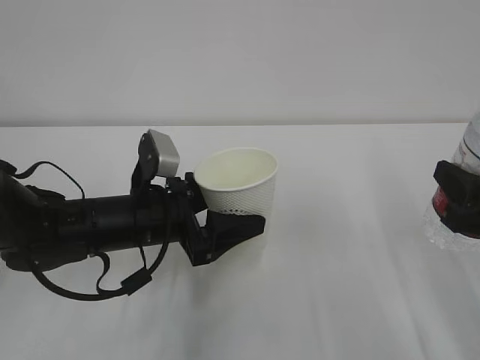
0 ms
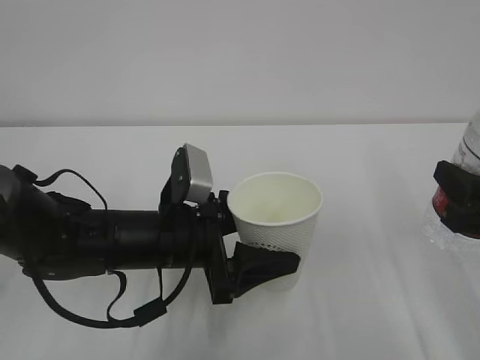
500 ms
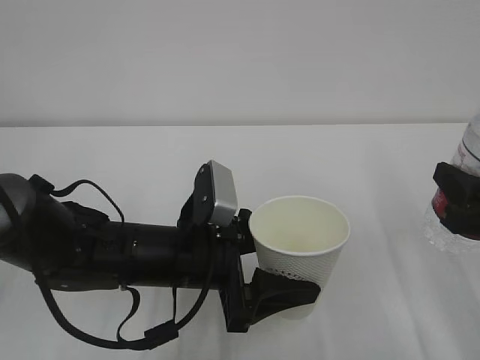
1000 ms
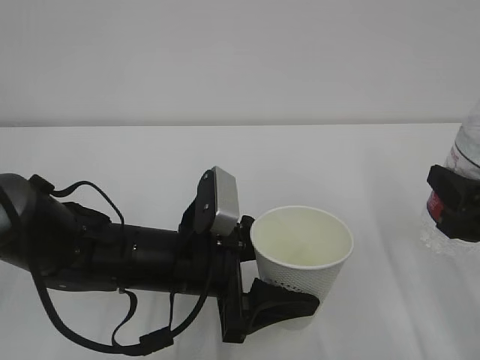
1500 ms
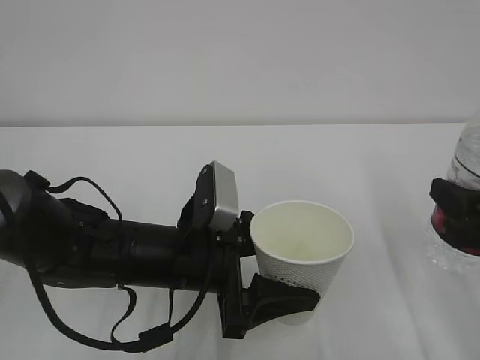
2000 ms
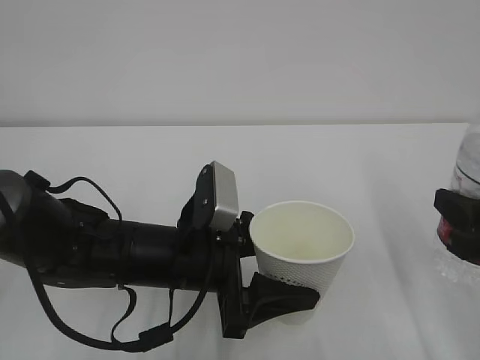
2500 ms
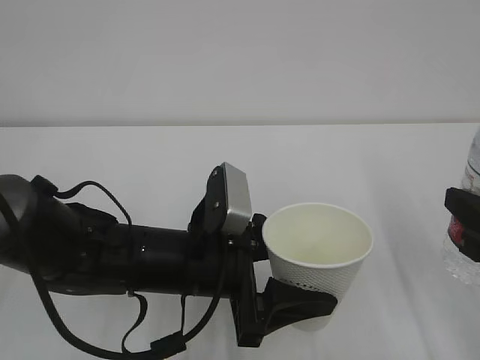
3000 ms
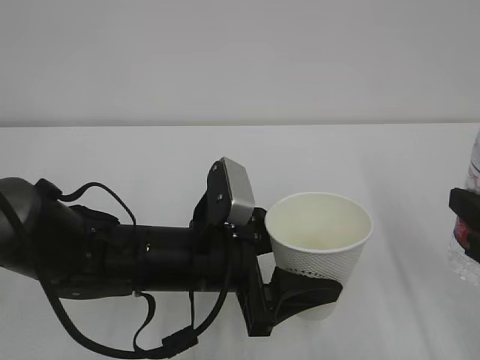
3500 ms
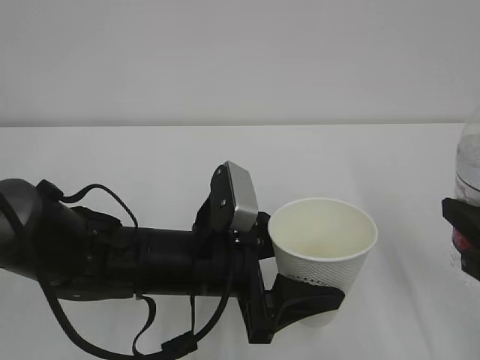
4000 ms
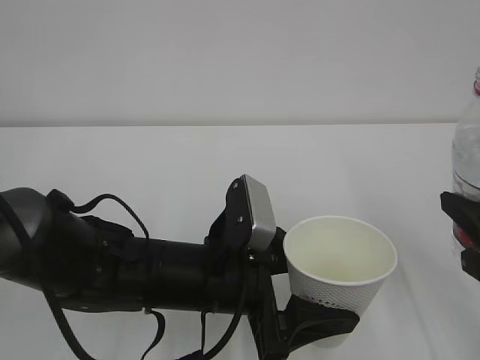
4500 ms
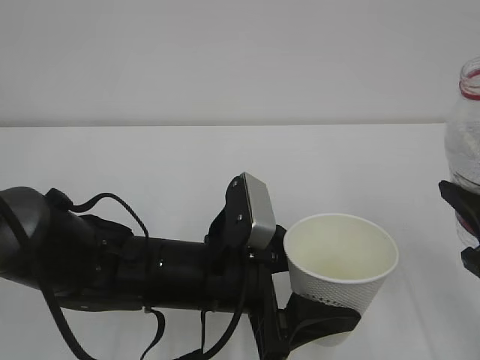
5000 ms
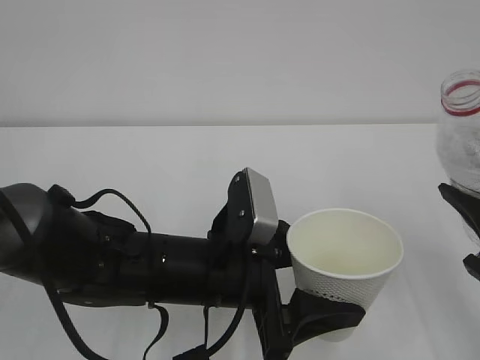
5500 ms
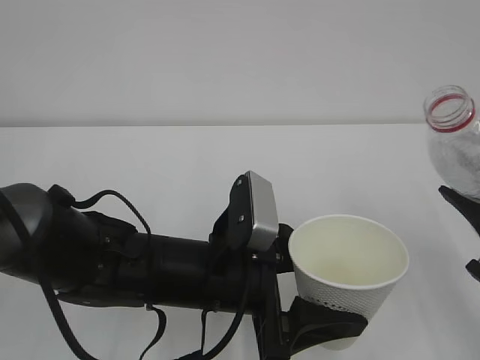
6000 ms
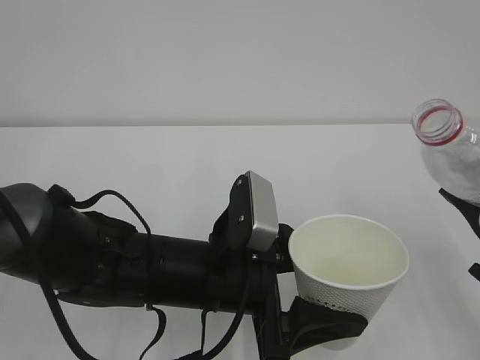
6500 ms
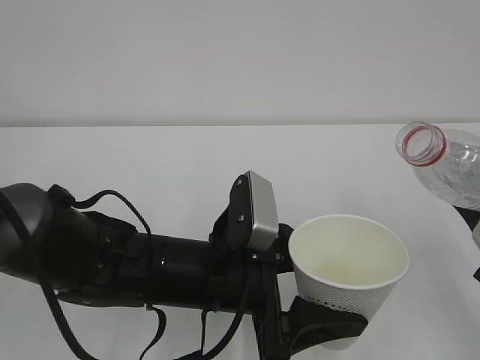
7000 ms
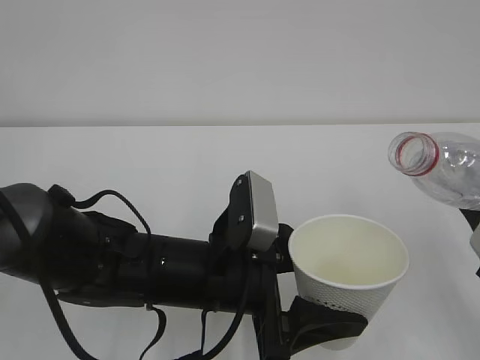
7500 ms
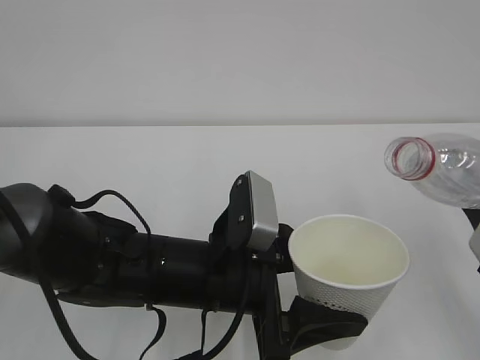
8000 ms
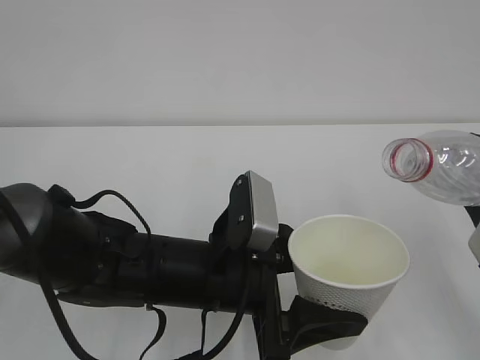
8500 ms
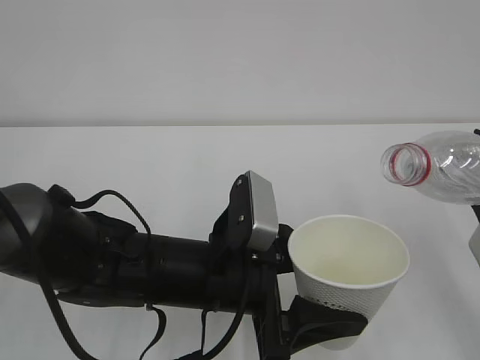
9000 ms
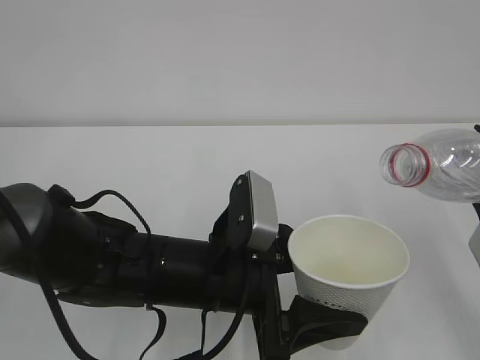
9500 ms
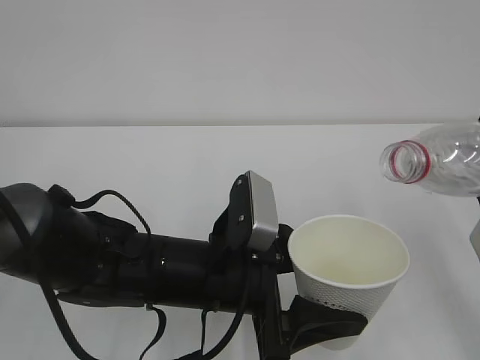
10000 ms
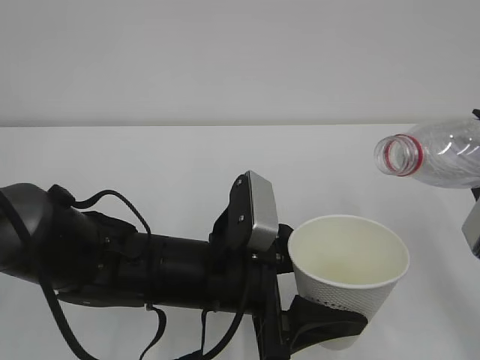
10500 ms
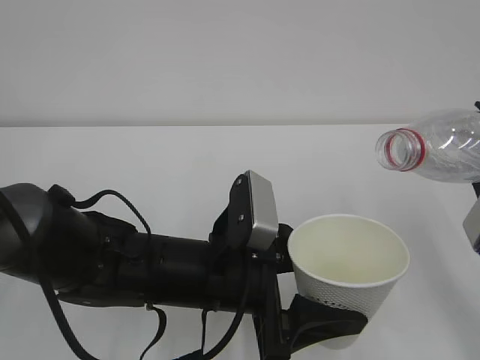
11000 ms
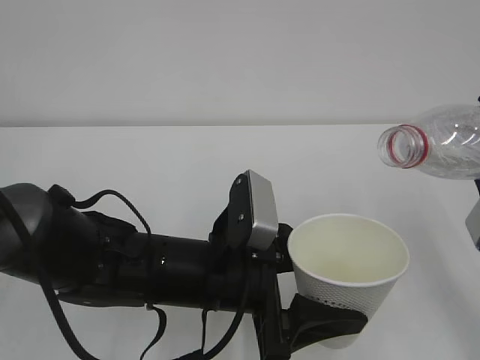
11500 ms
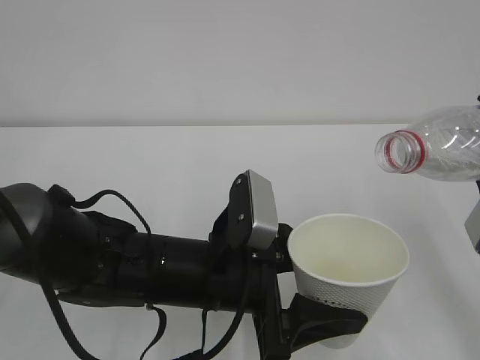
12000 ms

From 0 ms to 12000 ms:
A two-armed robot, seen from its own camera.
From 0 ms to 2000 ms: The left gripper moves backward and to the right, some 5 cm.
From 2000 ms to 4000 ms: The grippers move only a little.
From 8000 ms to 12000 ms: The grippers make only small movements.

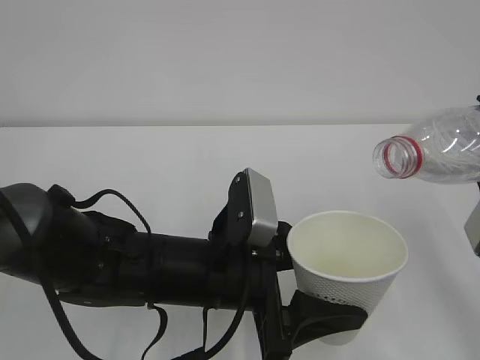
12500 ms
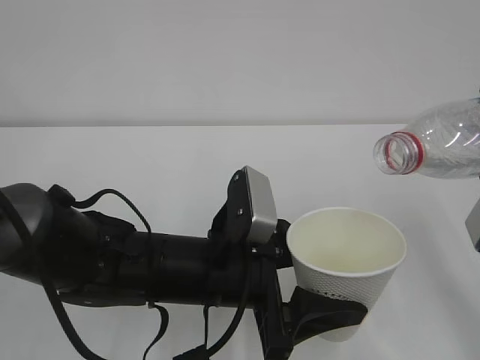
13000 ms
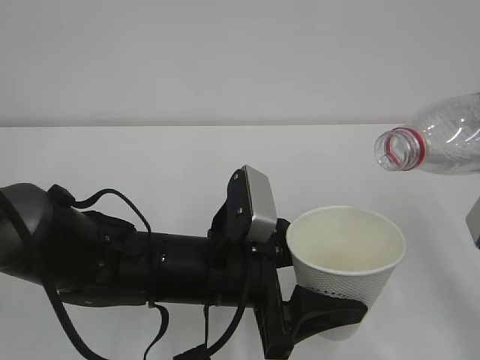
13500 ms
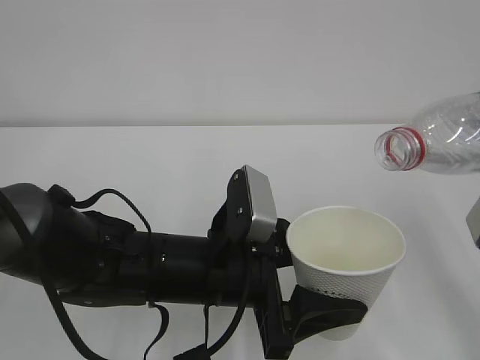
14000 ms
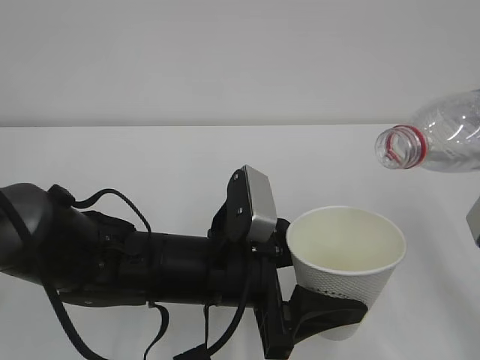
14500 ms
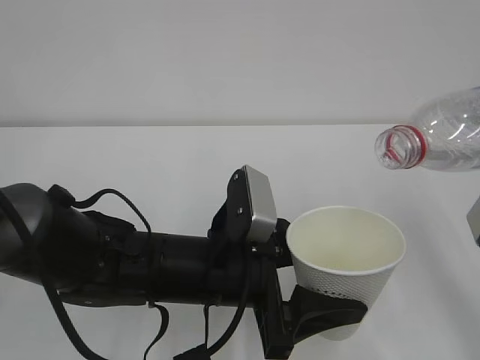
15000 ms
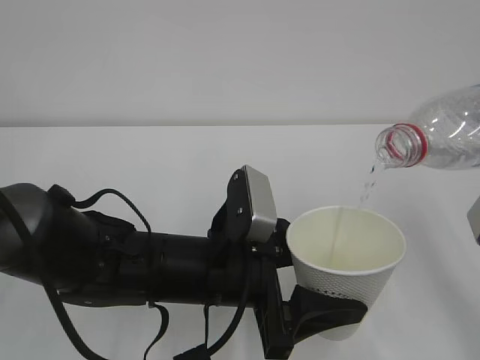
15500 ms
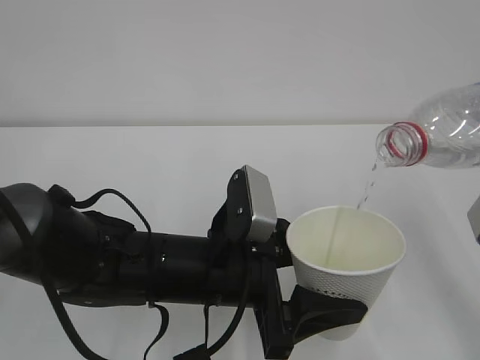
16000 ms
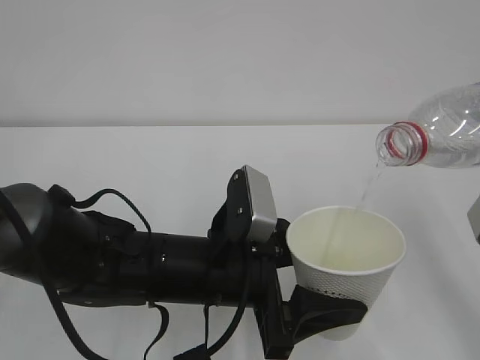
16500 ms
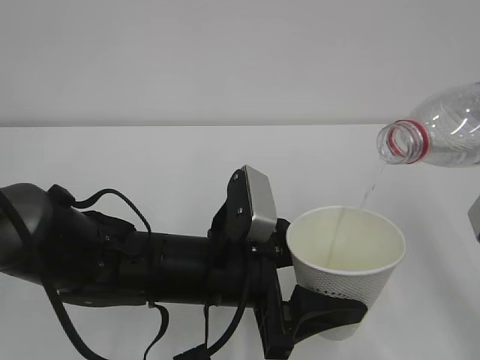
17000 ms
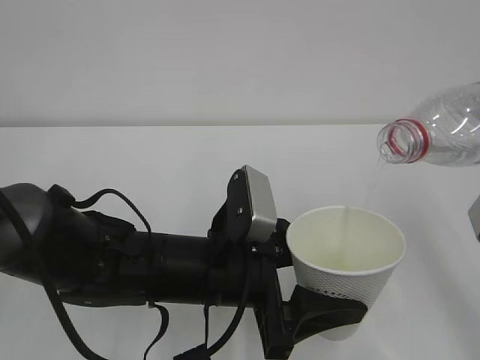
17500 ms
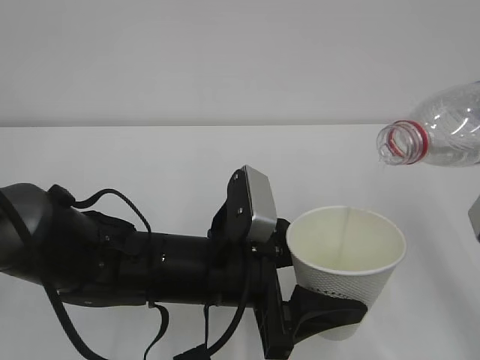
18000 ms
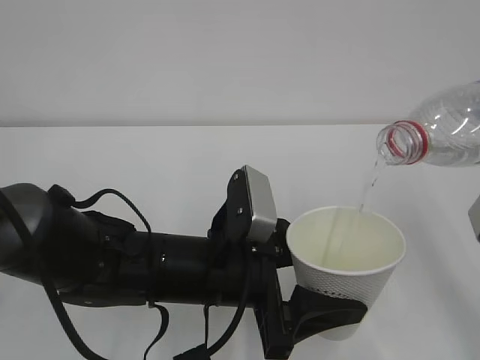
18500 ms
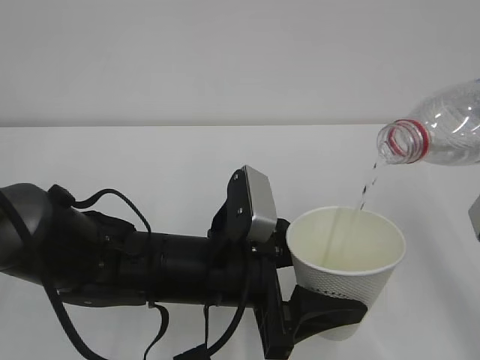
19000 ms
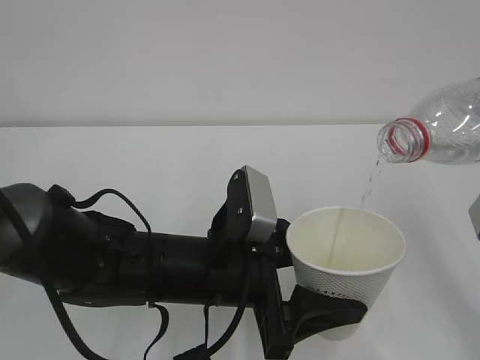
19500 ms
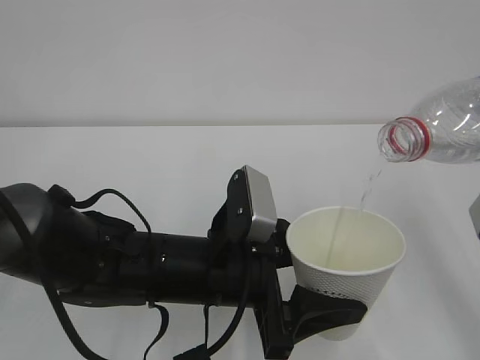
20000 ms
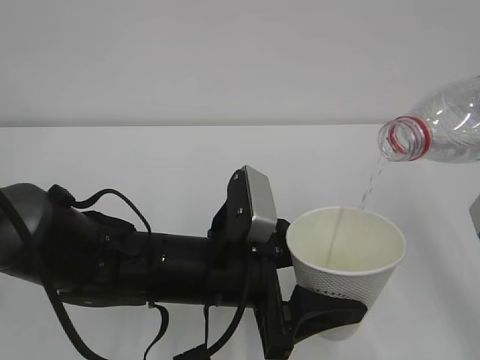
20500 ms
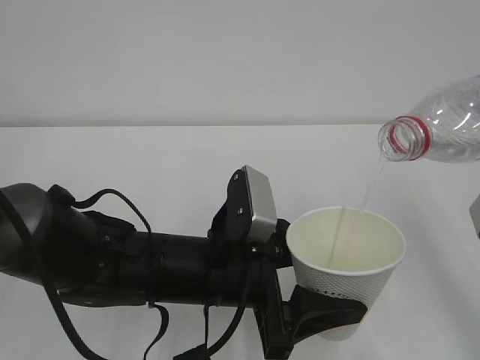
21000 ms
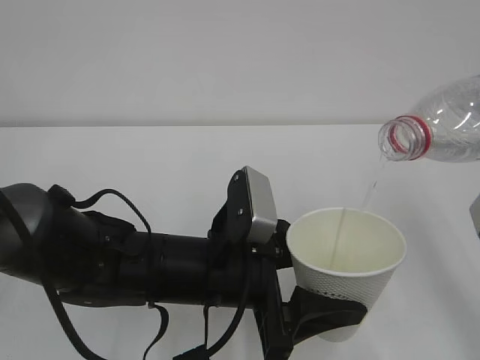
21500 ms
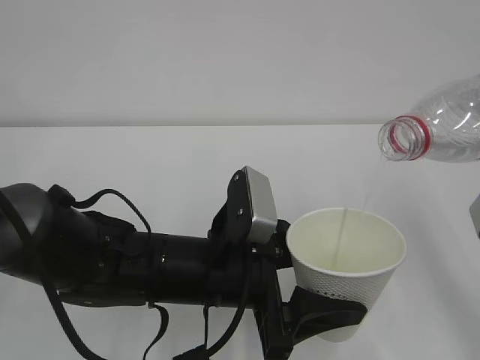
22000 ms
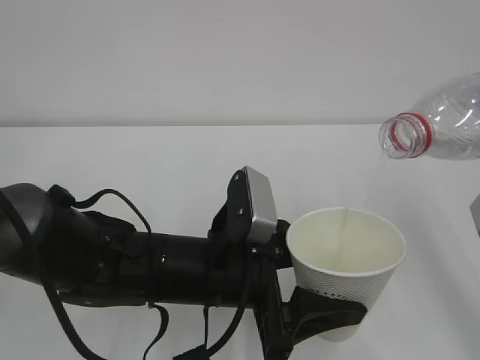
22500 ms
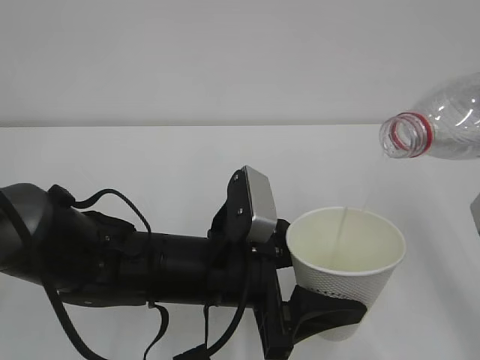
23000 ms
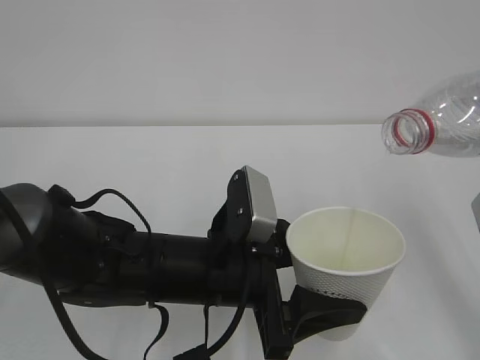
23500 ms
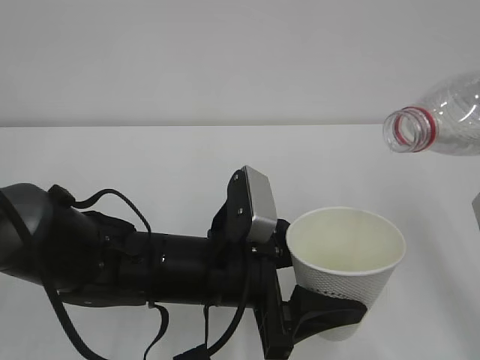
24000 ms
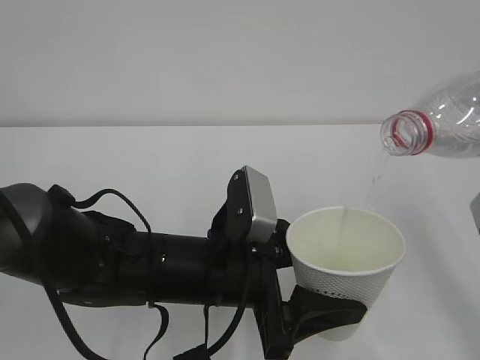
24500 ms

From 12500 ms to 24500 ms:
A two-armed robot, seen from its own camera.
From 12500 ms to 14500 ms: Neither gripper changes place.
From 14500 ms to 20500 ms: The two grippers keep their place.
From 20500 ms to 24500 ms: The two grippers keep their place.

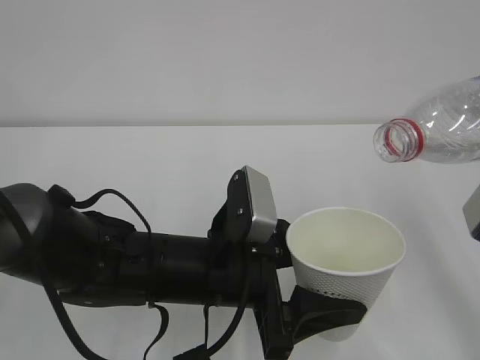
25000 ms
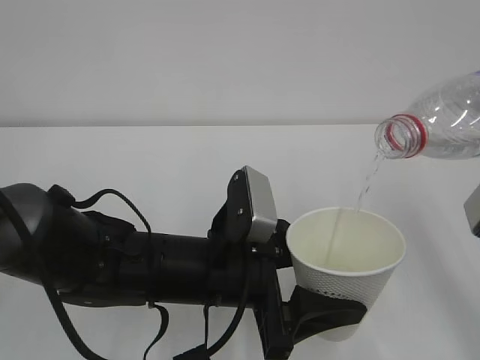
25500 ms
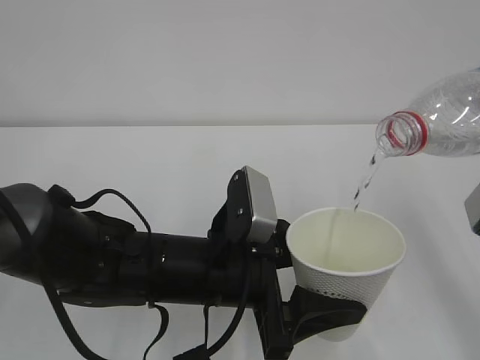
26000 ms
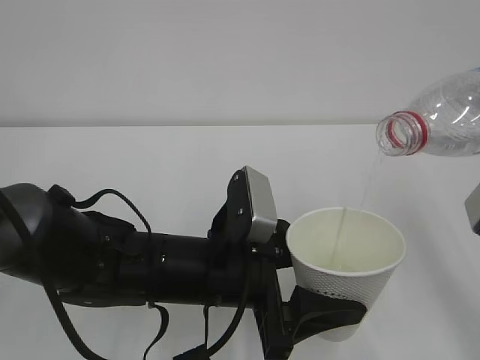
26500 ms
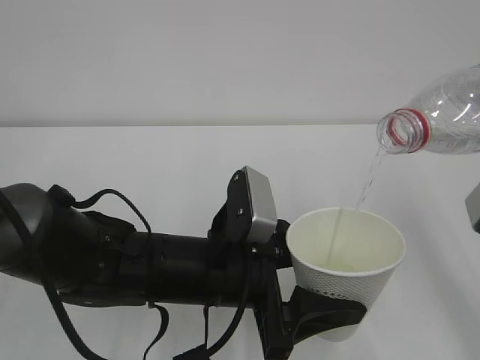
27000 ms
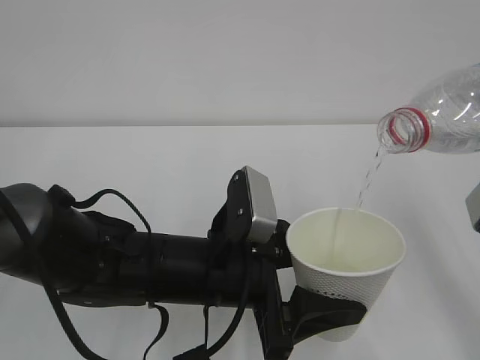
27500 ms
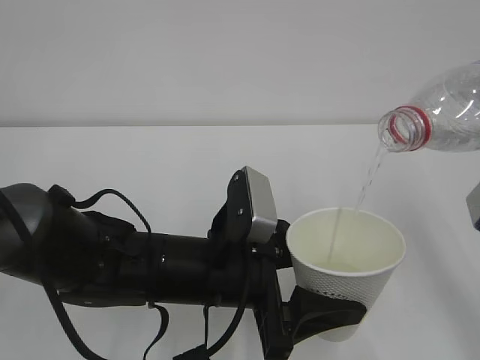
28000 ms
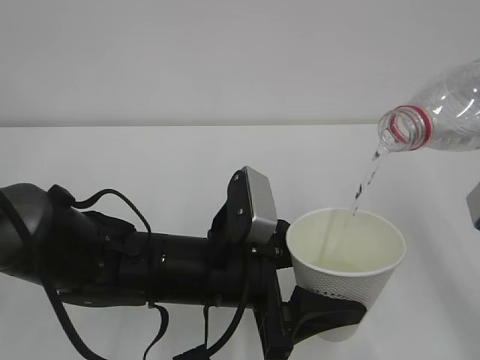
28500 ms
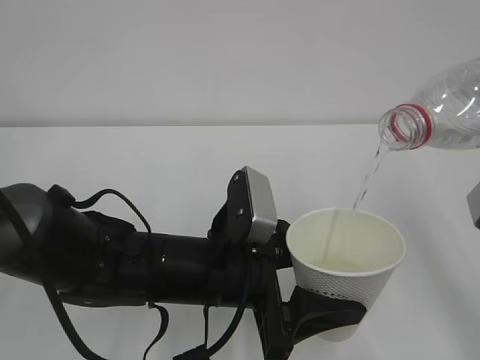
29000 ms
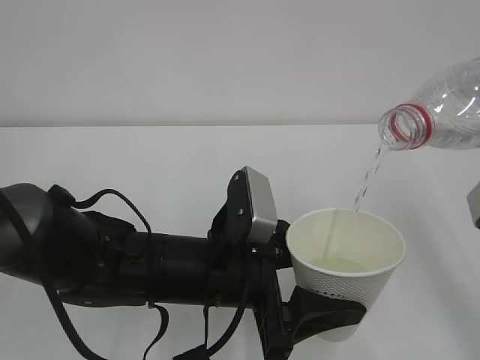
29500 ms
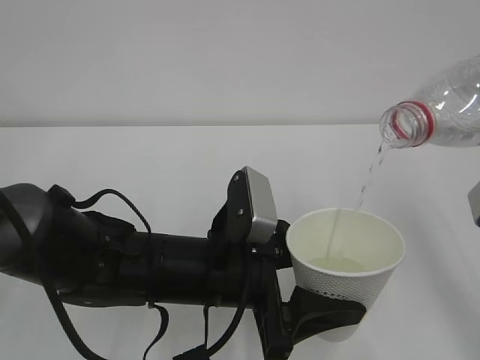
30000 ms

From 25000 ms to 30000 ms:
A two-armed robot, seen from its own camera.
From 25000 ms to 27500 ms: Both grippers stay put.
From 27500 ms to 30000 ms: Both grippers stay put.
